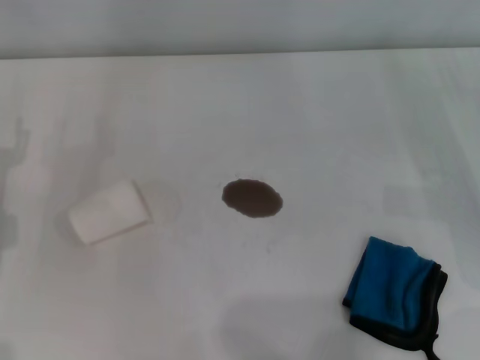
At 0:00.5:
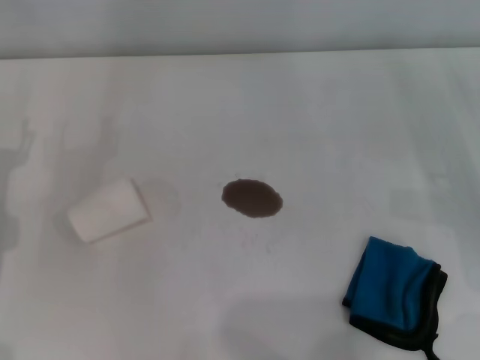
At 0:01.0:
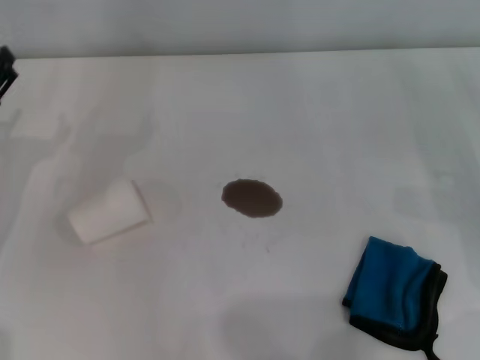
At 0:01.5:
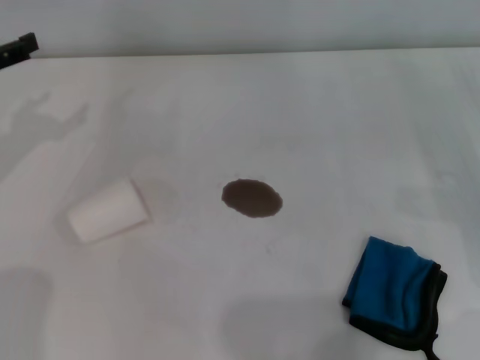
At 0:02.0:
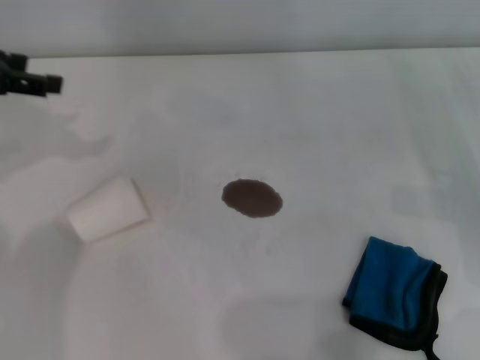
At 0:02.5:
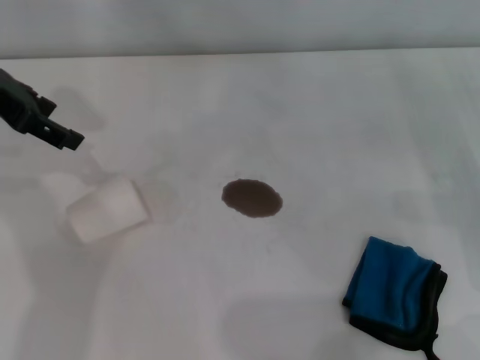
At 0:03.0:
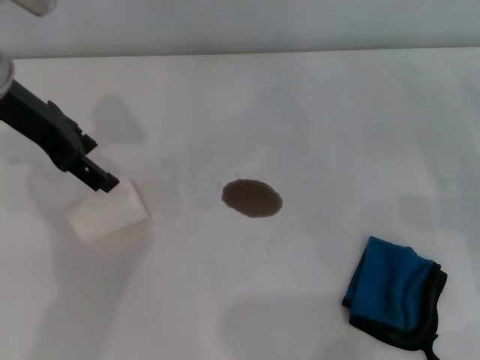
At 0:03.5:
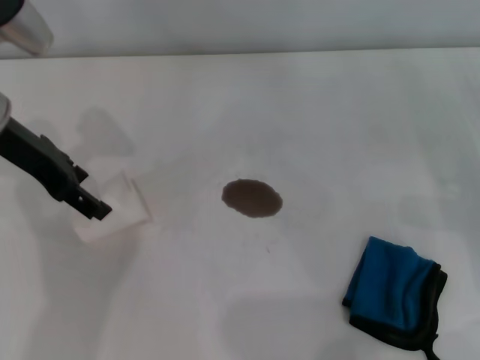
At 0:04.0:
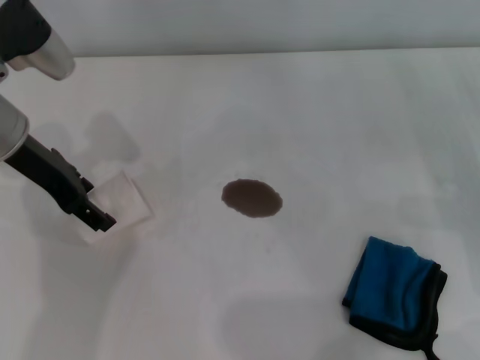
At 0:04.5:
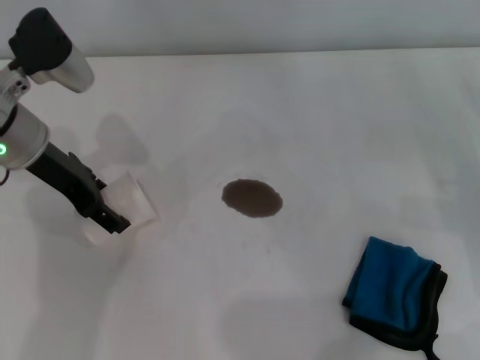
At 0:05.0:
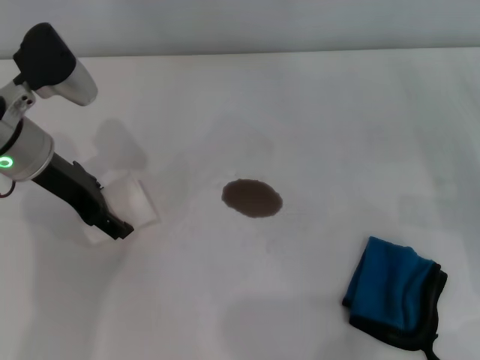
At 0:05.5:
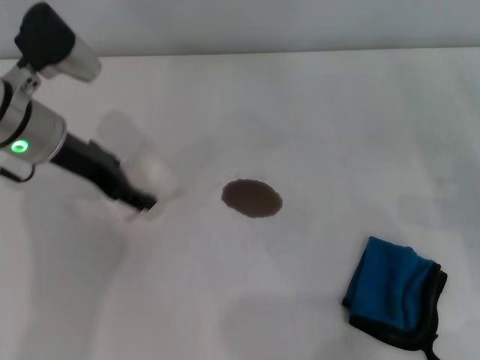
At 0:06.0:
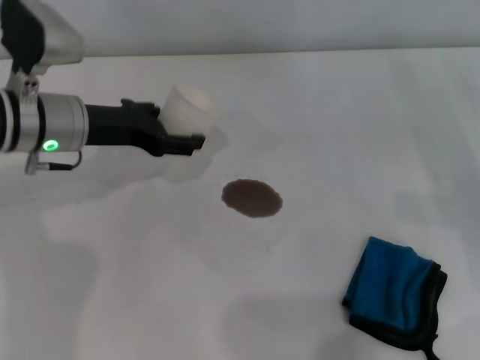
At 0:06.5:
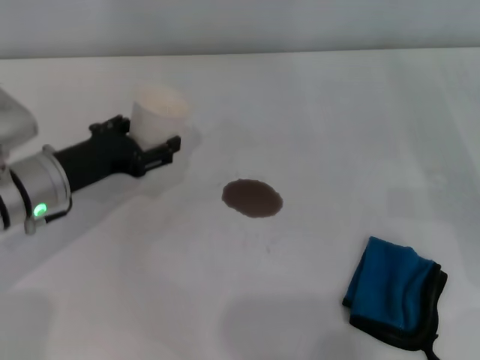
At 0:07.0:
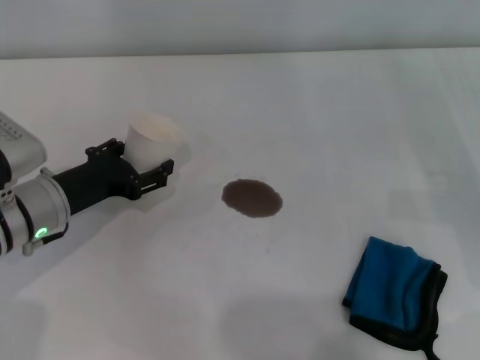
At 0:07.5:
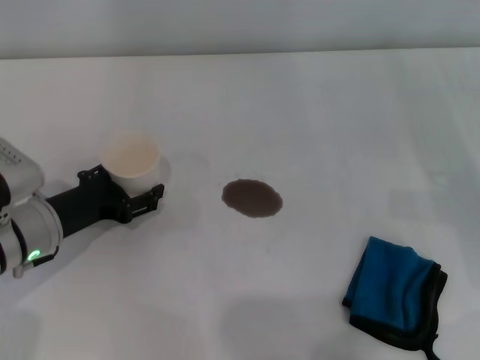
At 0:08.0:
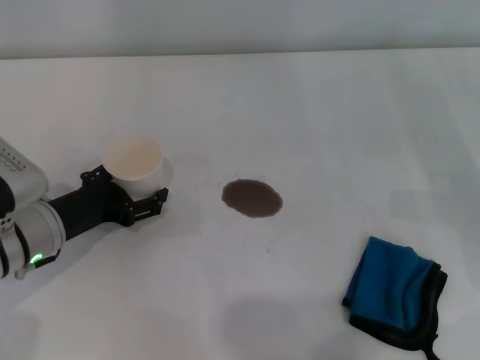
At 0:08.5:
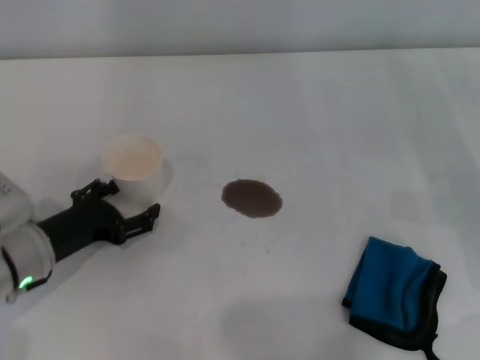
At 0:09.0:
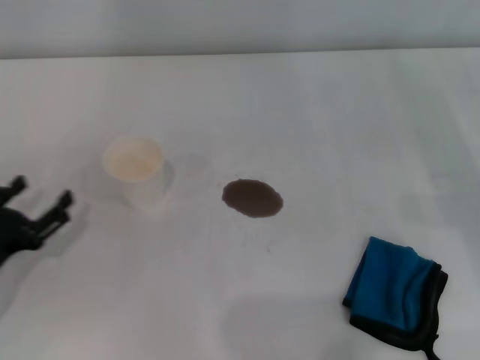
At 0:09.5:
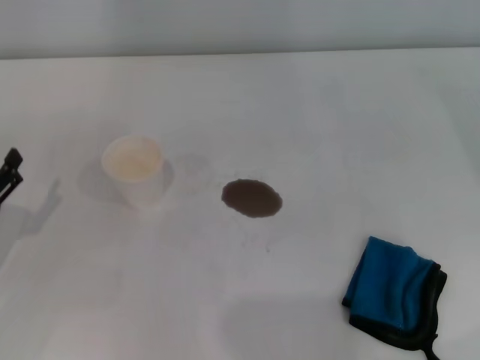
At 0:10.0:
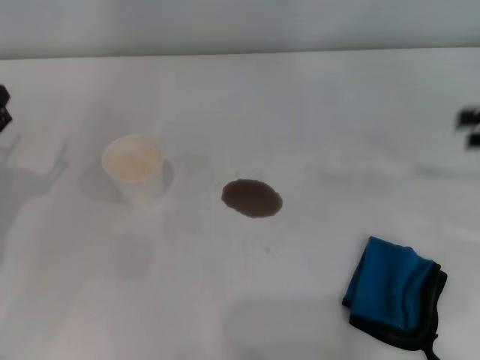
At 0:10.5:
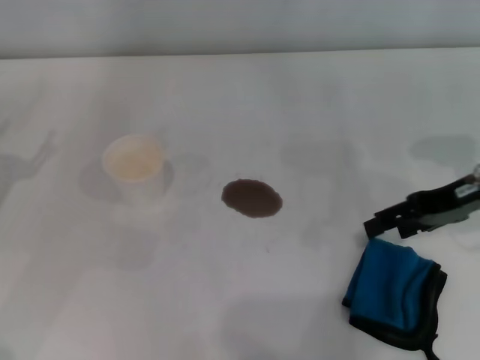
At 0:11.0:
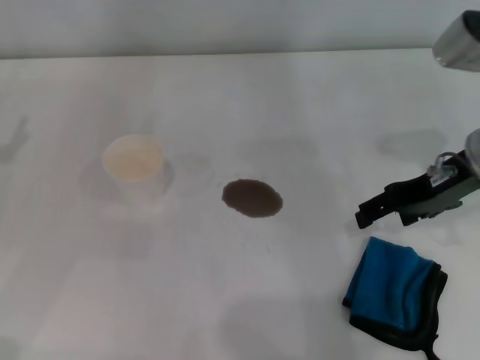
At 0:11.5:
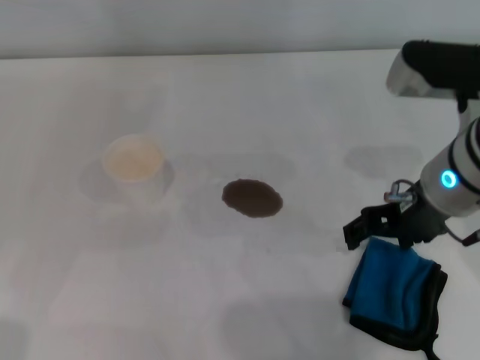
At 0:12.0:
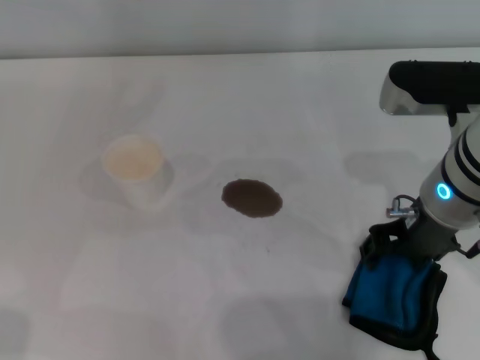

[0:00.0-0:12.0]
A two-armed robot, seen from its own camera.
Step, 0:00.0 to 0:05.0: Grasp the paper cup with the left gripper.
Step, 0:05.5 to 0:08.0: Stand the paper cup upright with the left gripper.
0:00.0 to 0:02.0: The left gripper moves upward and forward, about 20 cm.
0:02.0 to 0:04.0: The left gripper shifts some 10 cm to the right and downward.
0:04.0 to 0:06.0: The left gripper shifts by about 5 cm.
0:06.0 to 0:08.0: The left gripper heads downward and backward, covering some 15 cm.
0:08.0 to 0:10.0: The left gripper goes roughly 10 cm to the left, while the right gripper moves upward, roughly 10 cm.
0:10.0 to 0:12.0: The right gripper goes some 25 cm to the left.

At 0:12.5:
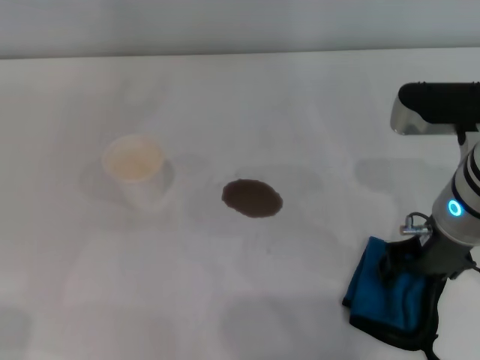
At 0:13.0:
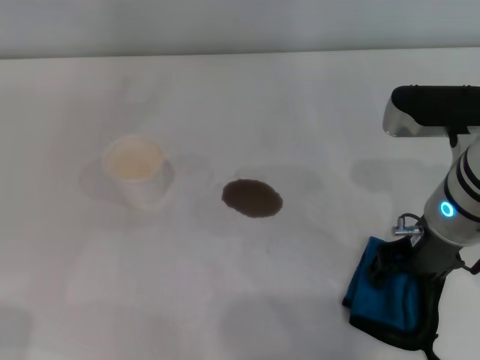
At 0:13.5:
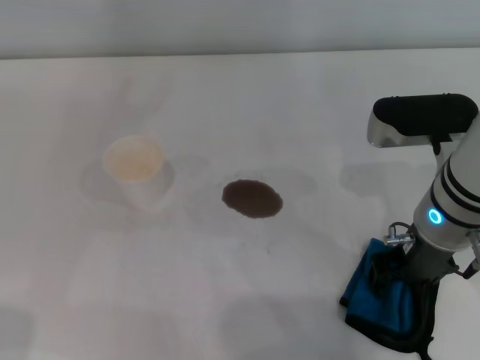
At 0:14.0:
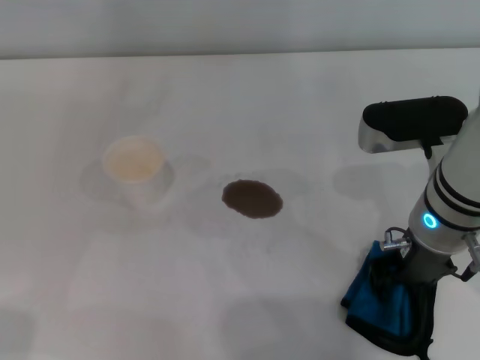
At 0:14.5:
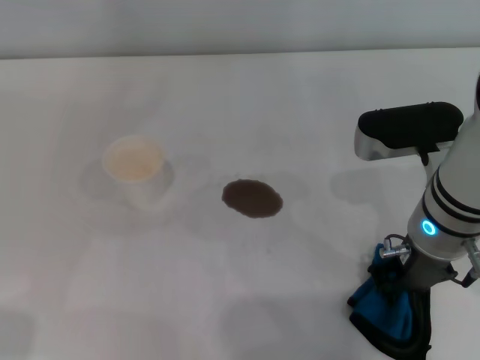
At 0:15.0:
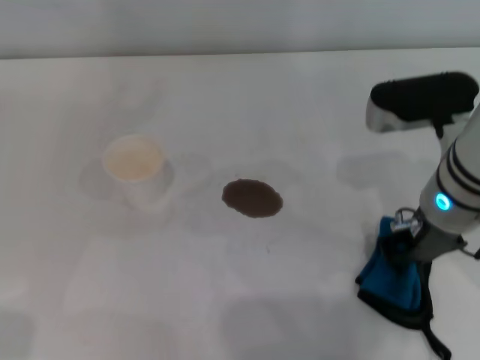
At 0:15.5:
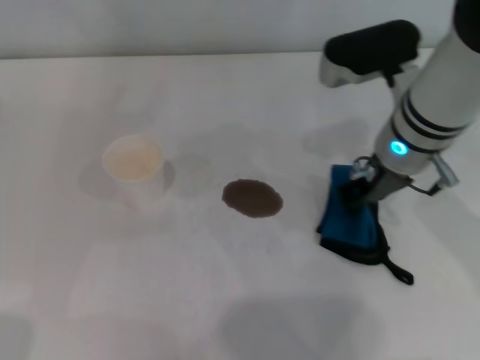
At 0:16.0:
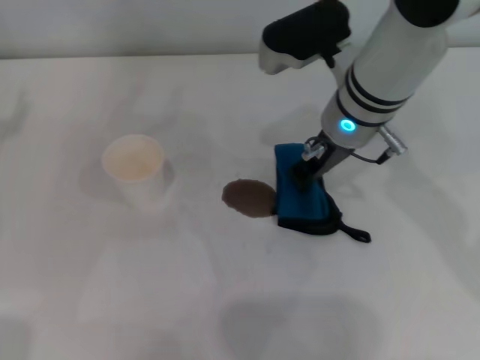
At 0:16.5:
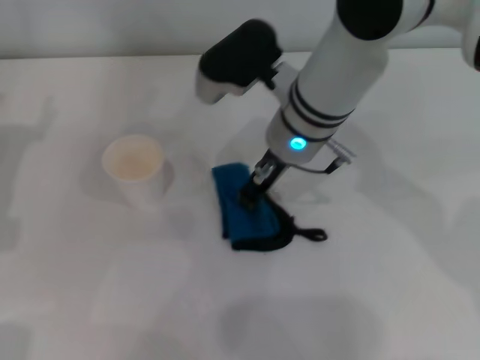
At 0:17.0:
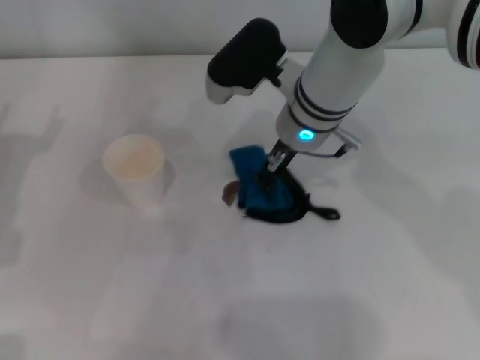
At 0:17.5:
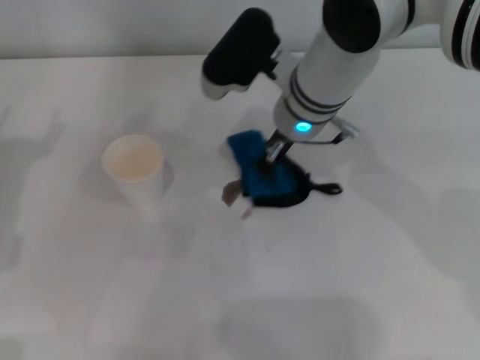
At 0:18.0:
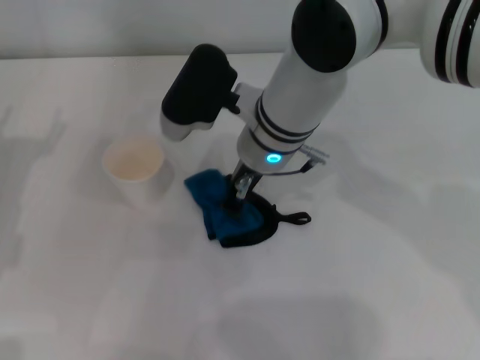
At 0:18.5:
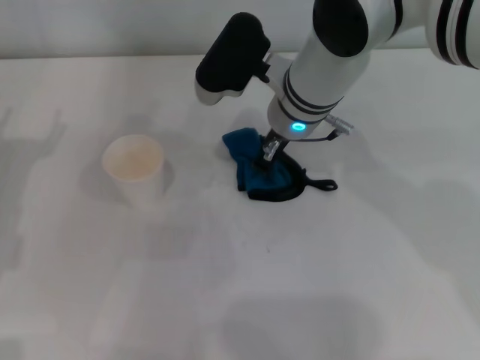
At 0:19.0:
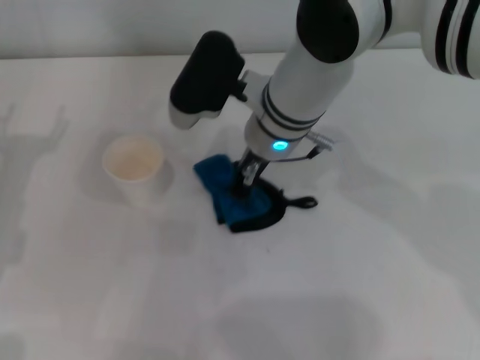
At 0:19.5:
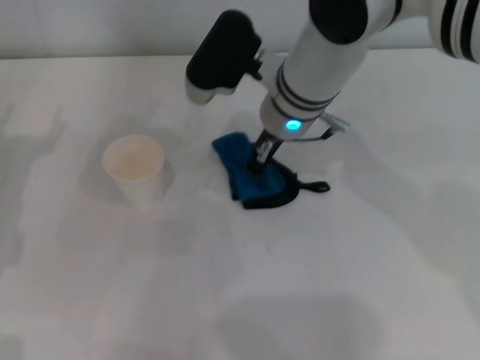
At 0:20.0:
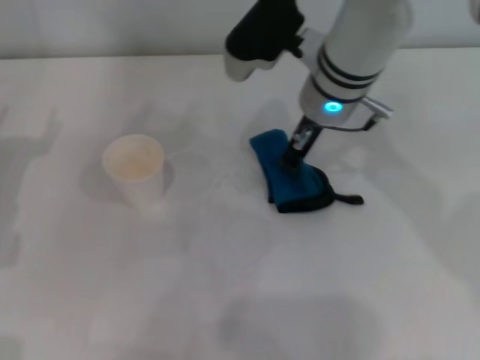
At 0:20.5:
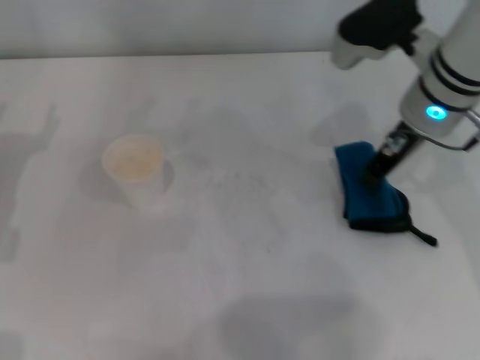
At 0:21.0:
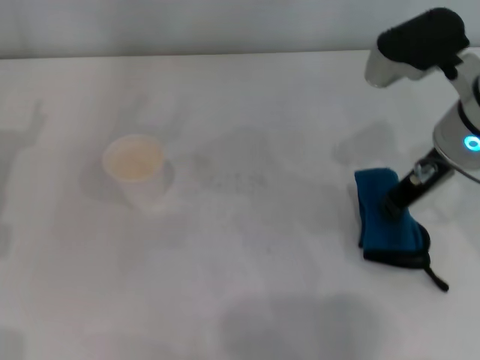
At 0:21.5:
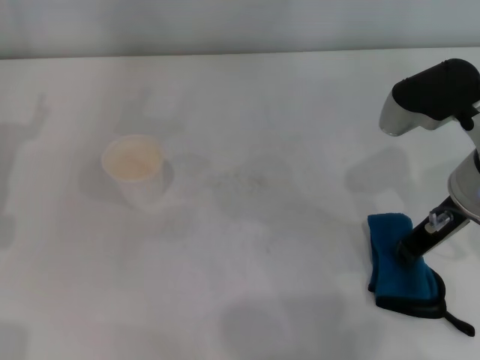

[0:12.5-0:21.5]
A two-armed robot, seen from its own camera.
Step, 0:12.5 to 0:14.5: Grasp the rag with the right gripper.
Step, 0:15.0 to 0:21.0: Wipe the stains off the table with the right gripper.
0:12.5 to 0:14.5: The right gripper closes.
0:14.5 to 0:17.0: The right gripper travels forward and to the left by some 15 cm. Meanwhile the left gripper heads to the right and downward, covering some 10 cm.
0:17.0 to 0:19.5: The grippers stay close to where they were, moving slightly.
0:19.5 to 0:21.5: The right gripper moves to the right and backward, about 20 cm.

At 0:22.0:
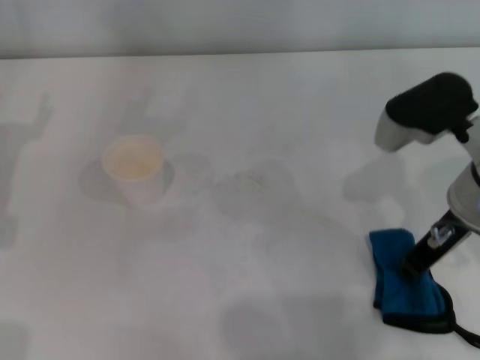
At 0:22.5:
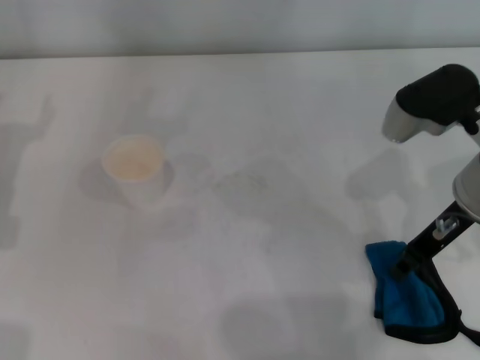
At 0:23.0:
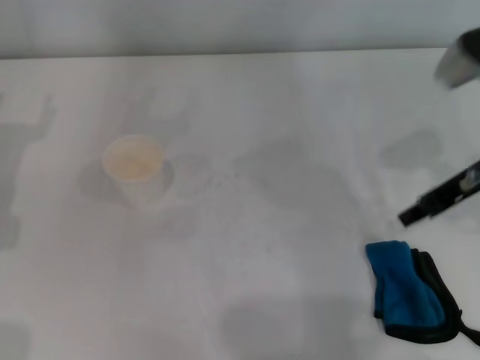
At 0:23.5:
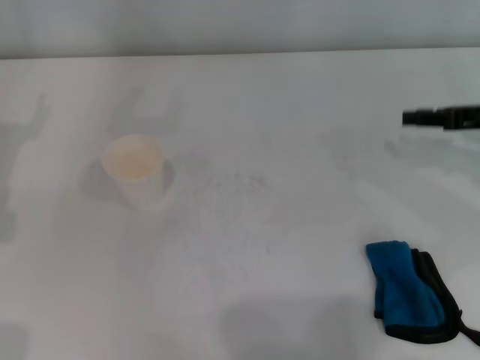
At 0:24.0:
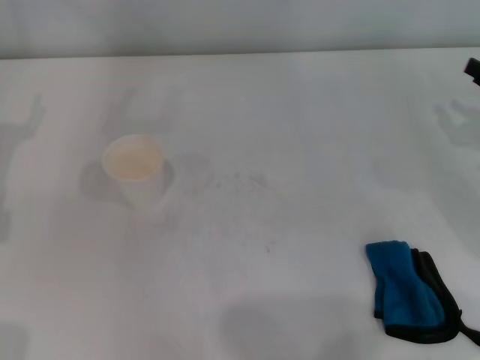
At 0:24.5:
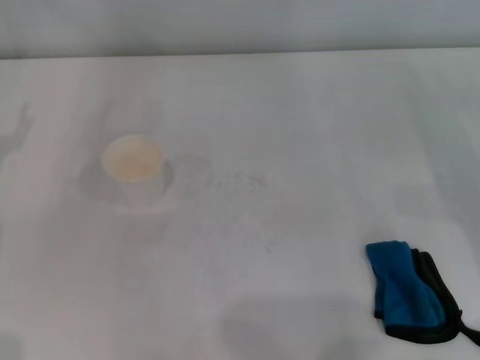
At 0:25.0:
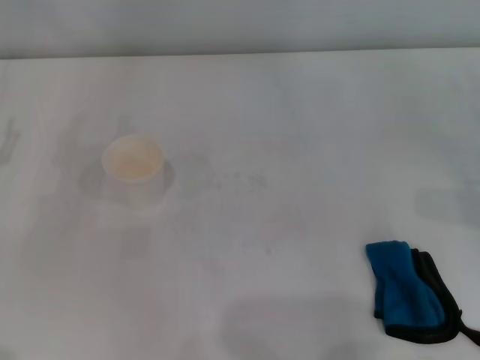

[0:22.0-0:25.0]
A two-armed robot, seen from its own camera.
0:22.0 to 0:23.5: The right gripper shifts approximately 15 cm to the right.
0:23.5 to 0:25.0: The right gripper heads downward, backward and to the right, covering roughly 10 cm.
